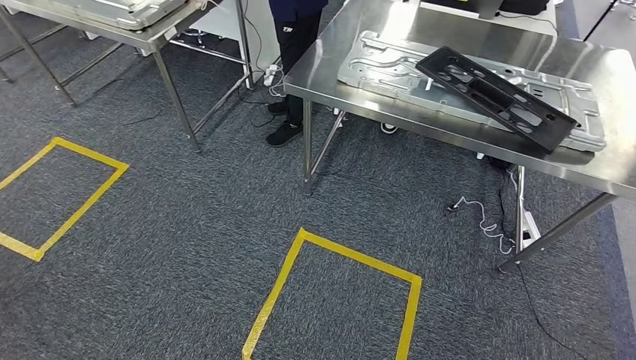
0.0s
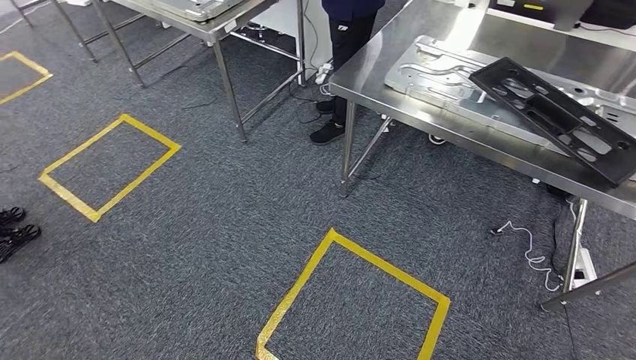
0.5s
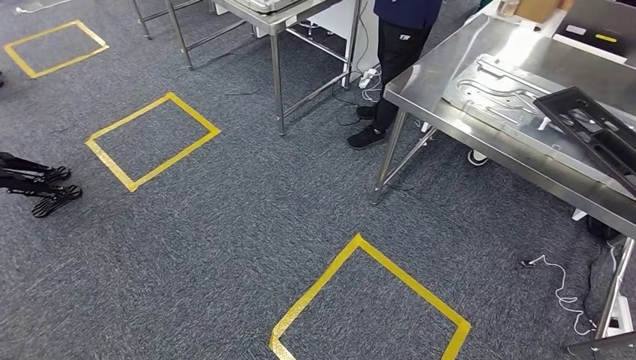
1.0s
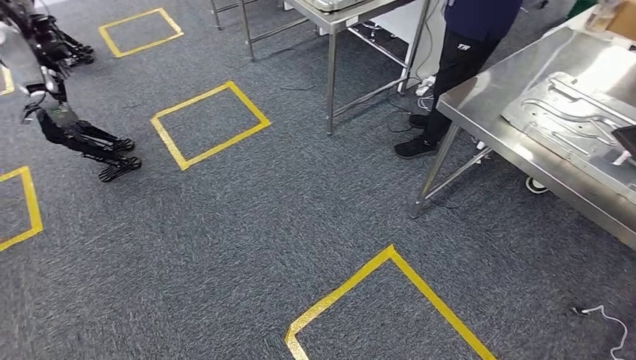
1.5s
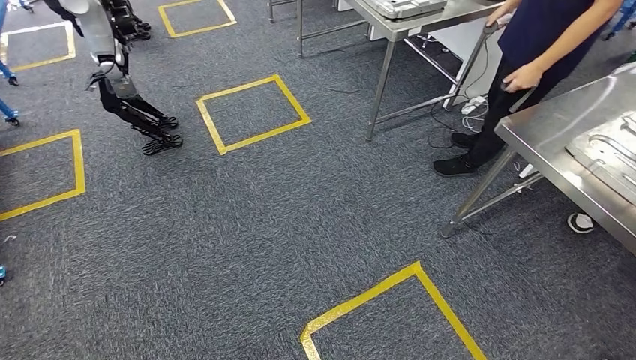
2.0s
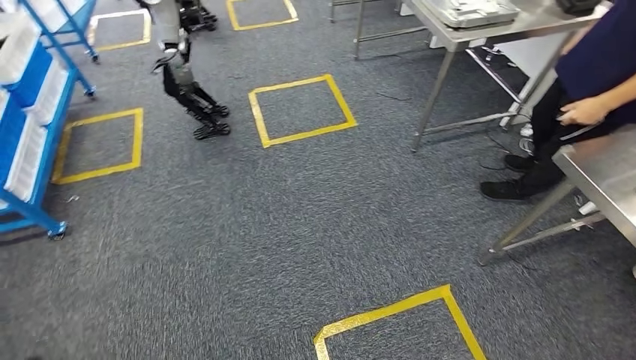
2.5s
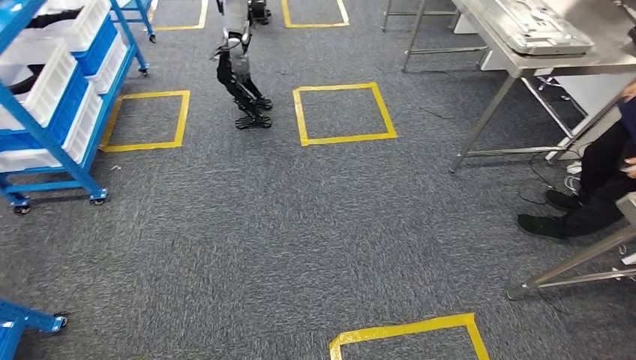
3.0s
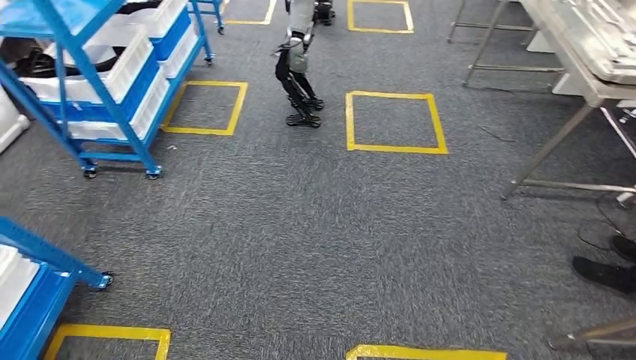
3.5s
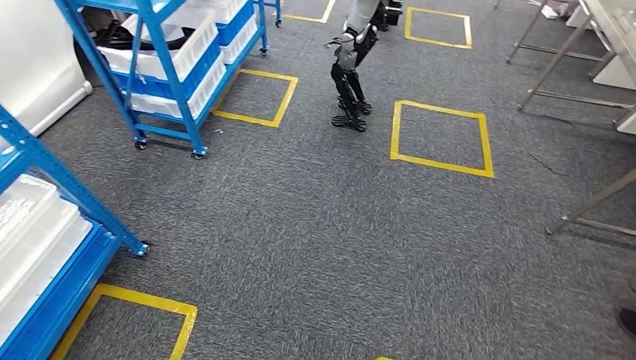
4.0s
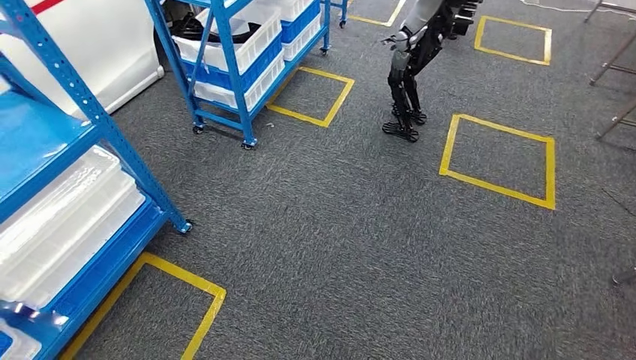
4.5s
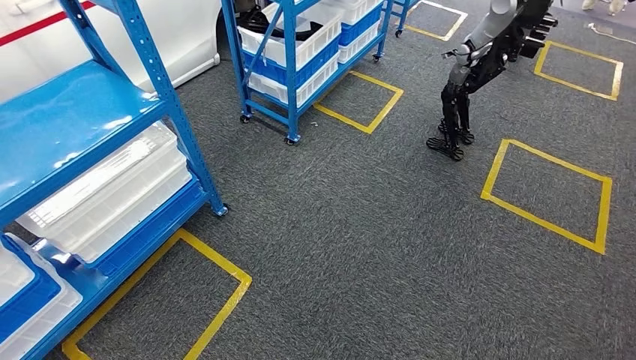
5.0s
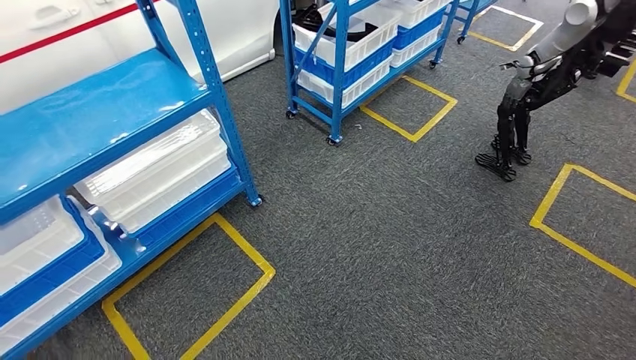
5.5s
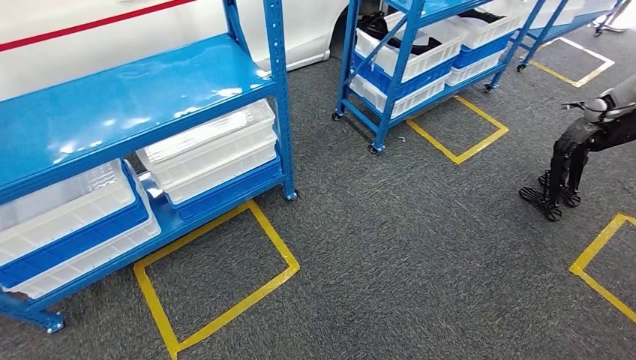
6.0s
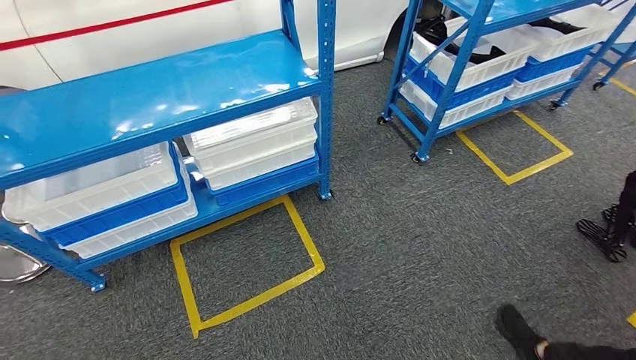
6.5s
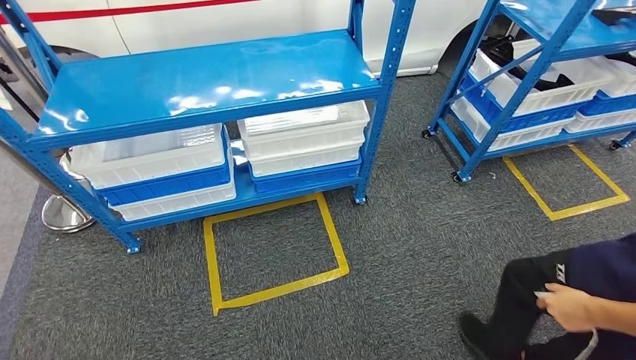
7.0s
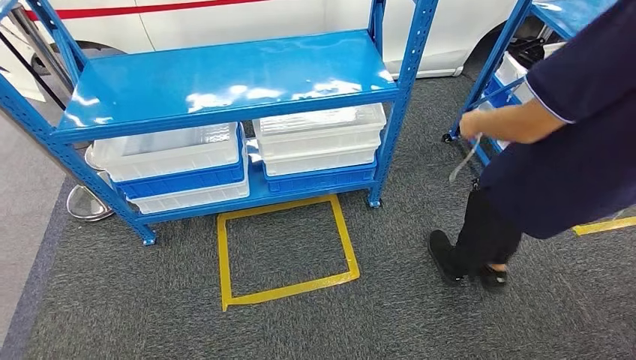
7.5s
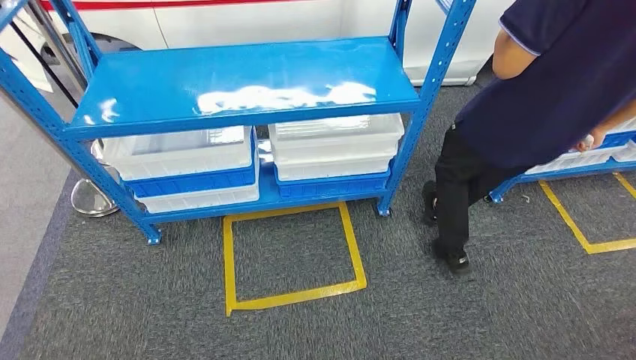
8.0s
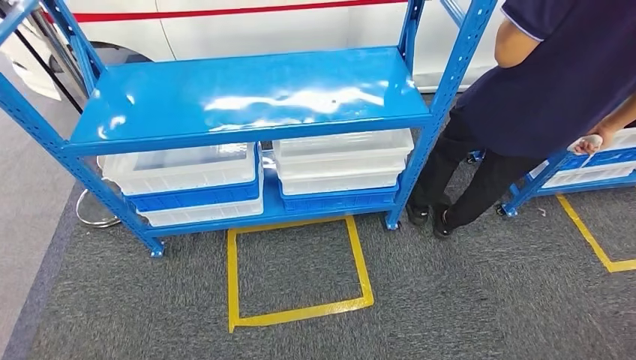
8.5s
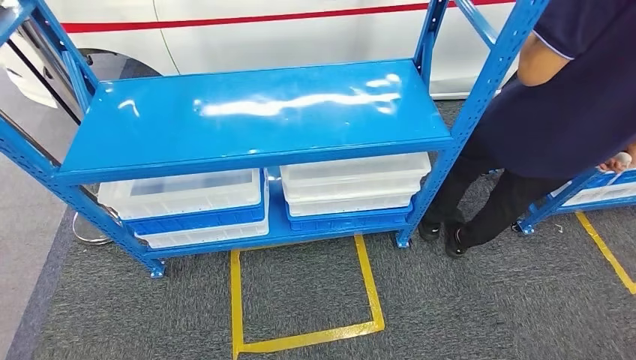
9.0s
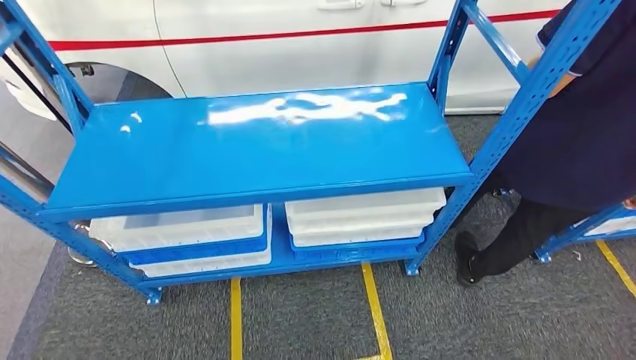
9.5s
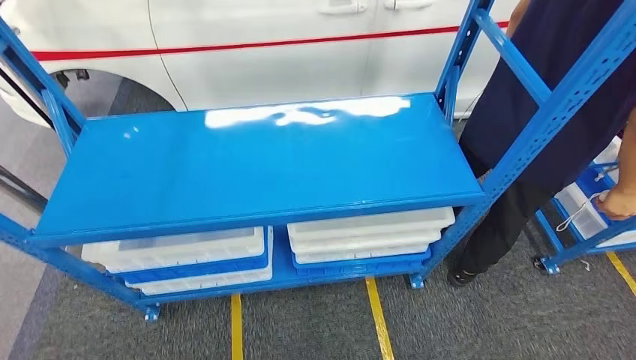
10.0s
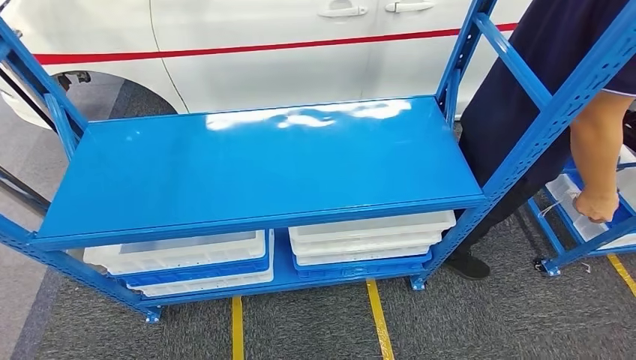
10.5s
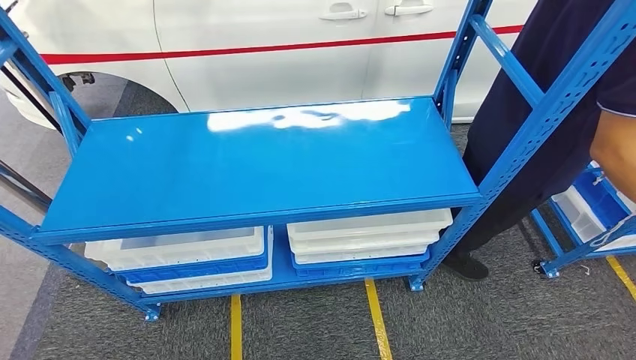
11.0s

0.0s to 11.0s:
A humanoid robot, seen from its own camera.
Step, 0.0s to 11.0s: Move to the initial position of the shelf.

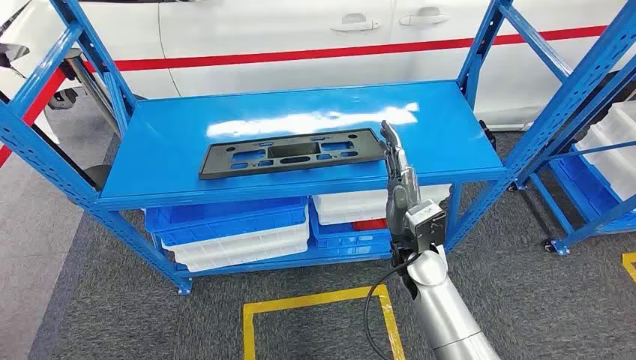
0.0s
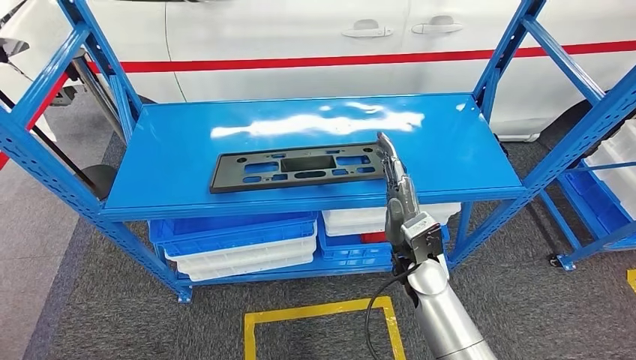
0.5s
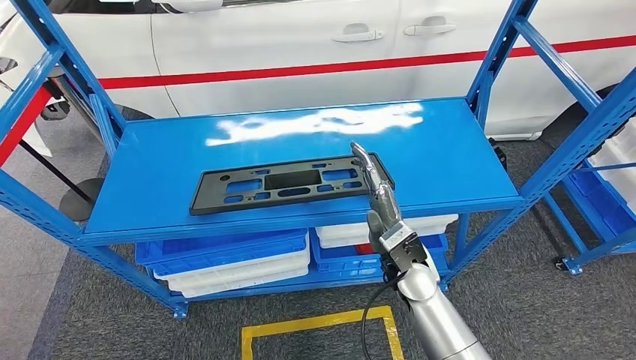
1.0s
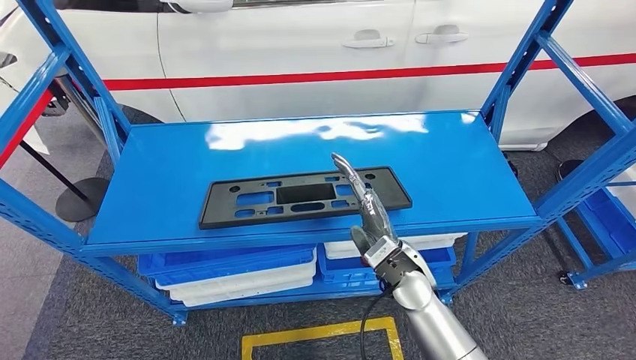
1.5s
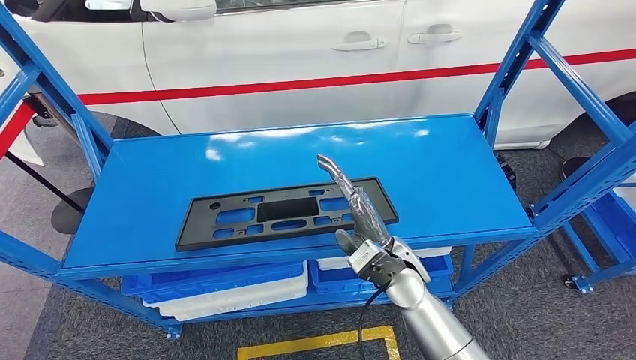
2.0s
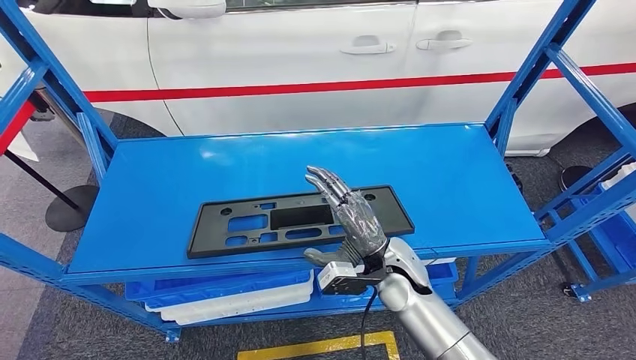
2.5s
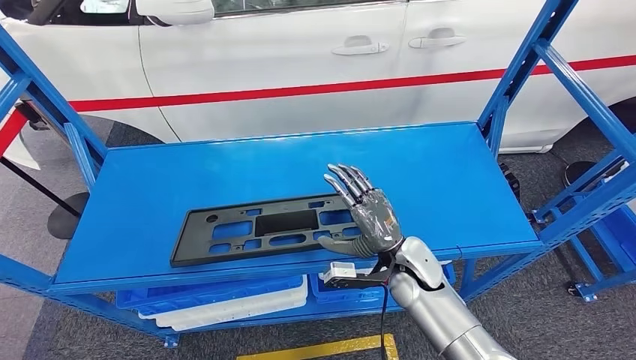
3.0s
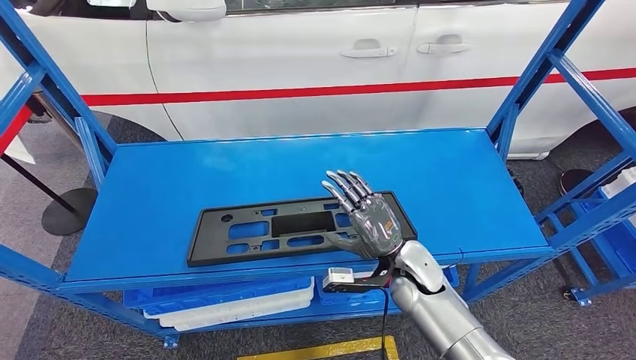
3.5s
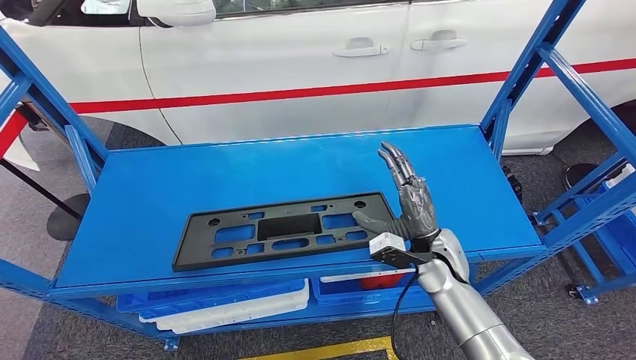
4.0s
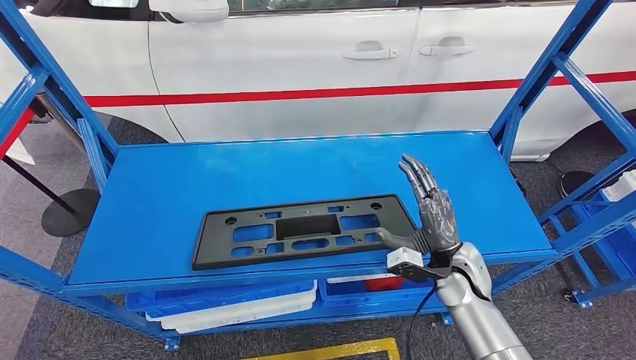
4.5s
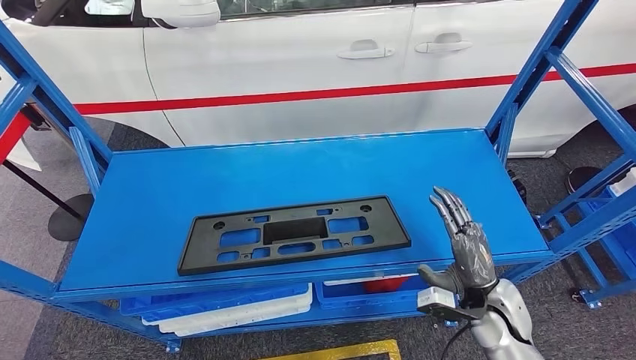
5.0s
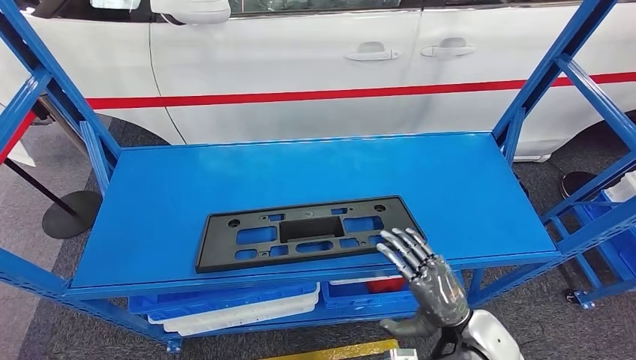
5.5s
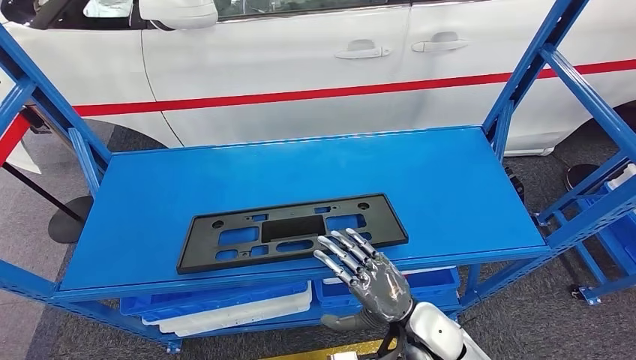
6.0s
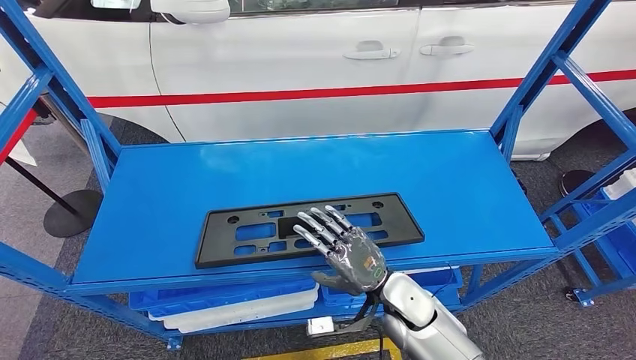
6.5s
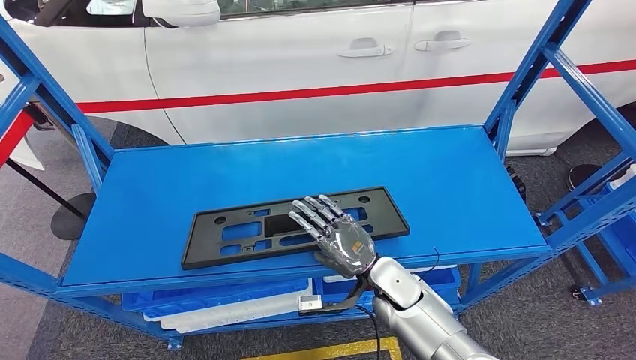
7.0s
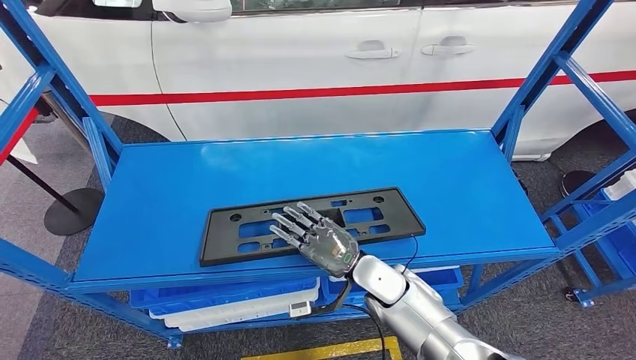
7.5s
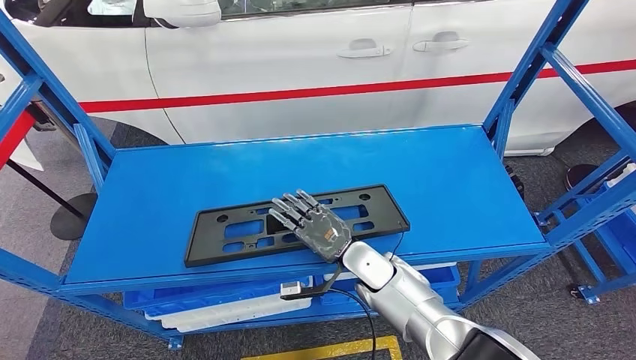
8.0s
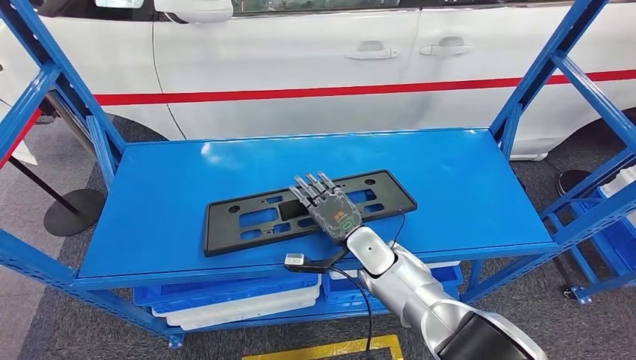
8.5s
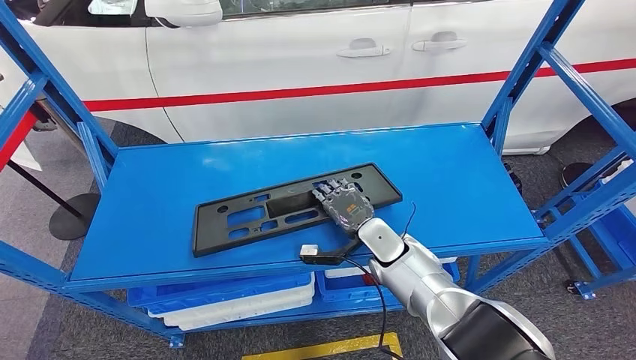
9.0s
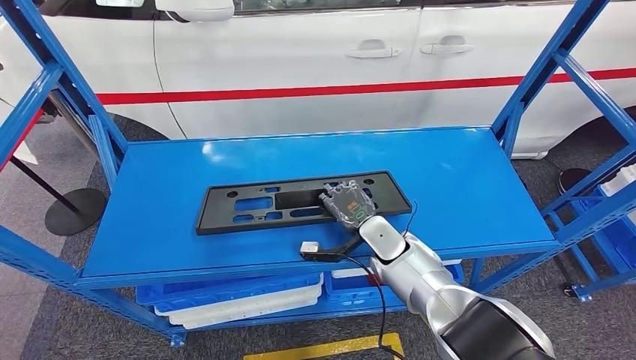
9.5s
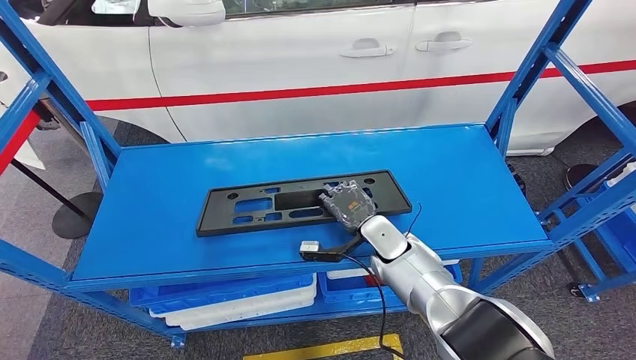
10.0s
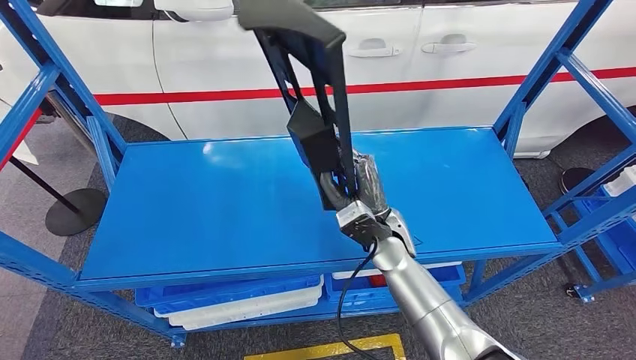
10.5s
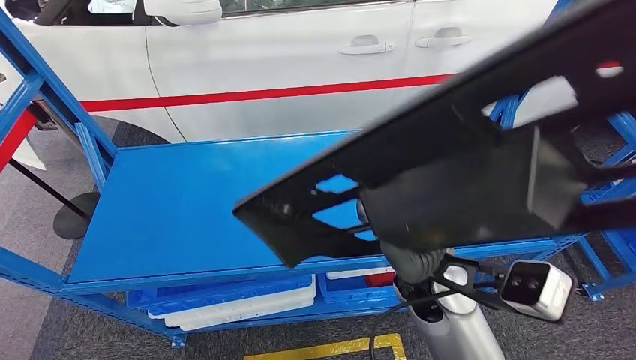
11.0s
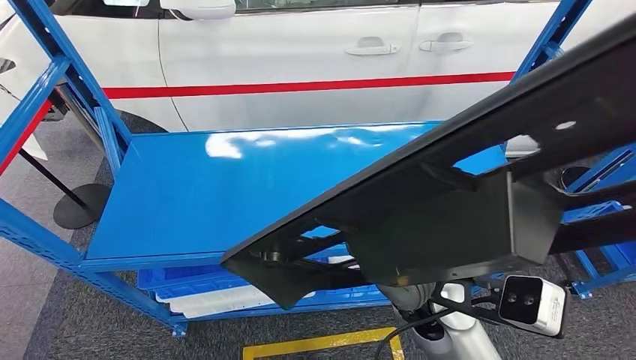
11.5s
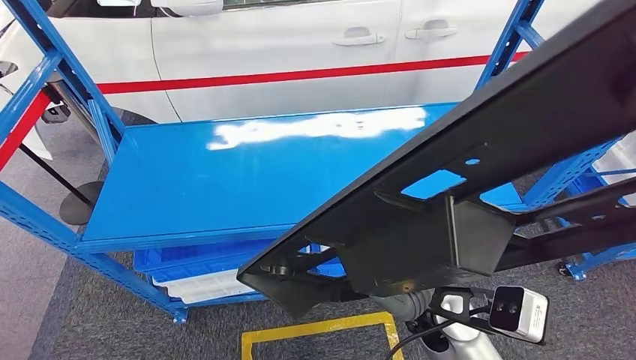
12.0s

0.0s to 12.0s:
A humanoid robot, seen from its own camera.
Step, 0.0s to 11.5s: Pick up the large material from the shelf.
4.0s to 6.0s: The right hand is displaced backward by approximately 10 cm.
6.0s to 8.0s: The right hand heads forward and to the left, covering some 15 cm.
8.0s to 10.0s: The right hand ends up roughly 5 cm from where it was.
